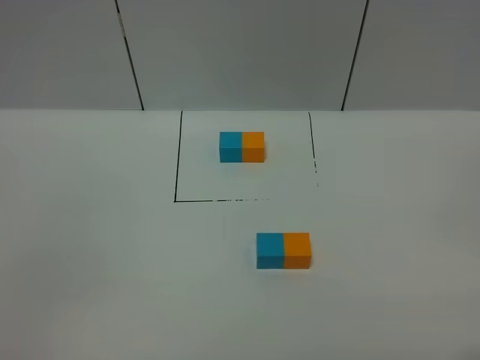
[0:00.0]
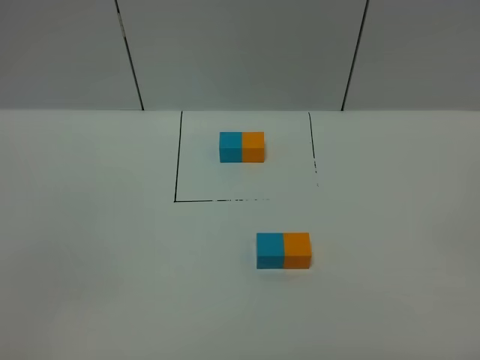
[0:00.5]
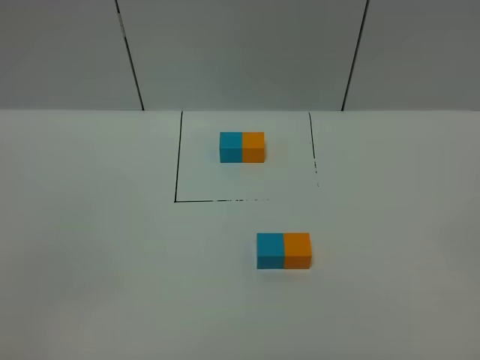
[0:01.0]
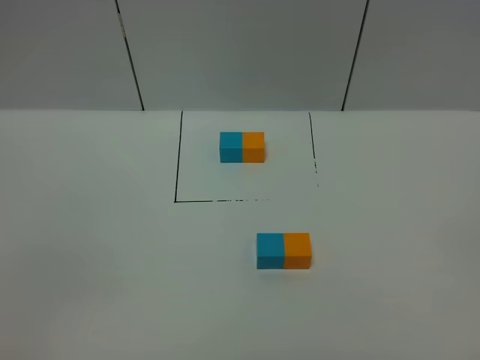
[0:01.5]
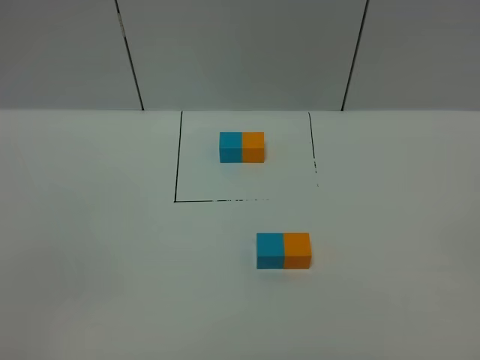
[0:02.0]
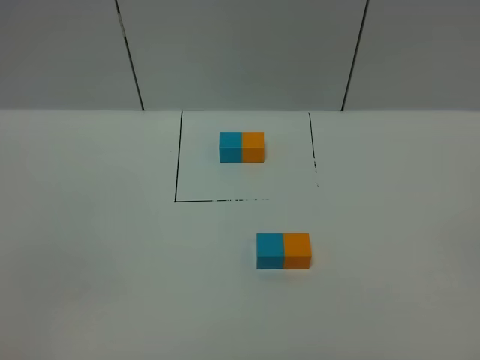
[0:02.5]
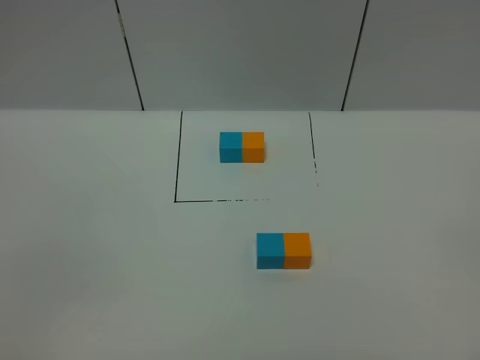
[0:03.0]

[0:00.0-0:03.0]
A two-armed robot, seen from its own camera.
Task of the whole recording: According to the building block template in front, assemble the scattered blocks together.
0:01.5 to 0:03.0: Both grippers stay put.
